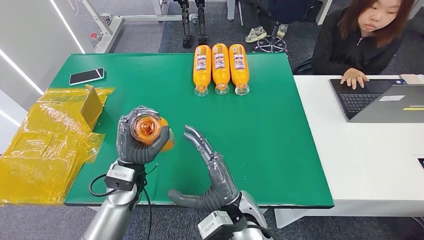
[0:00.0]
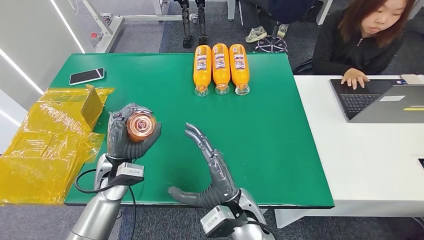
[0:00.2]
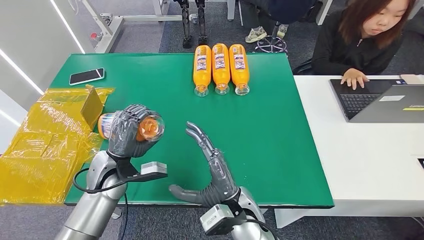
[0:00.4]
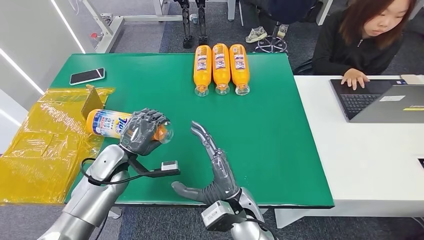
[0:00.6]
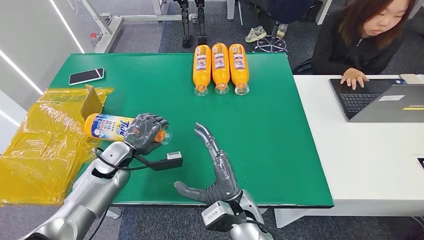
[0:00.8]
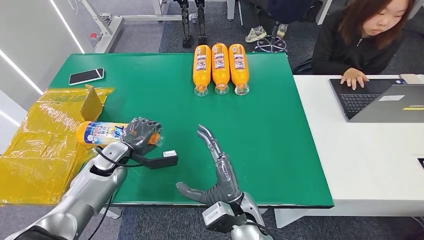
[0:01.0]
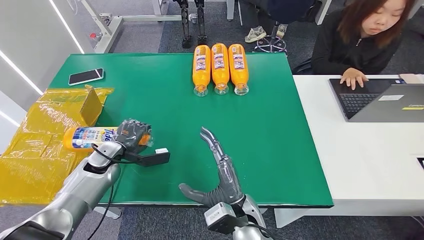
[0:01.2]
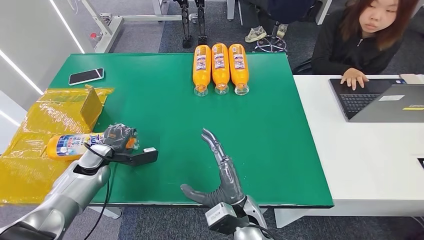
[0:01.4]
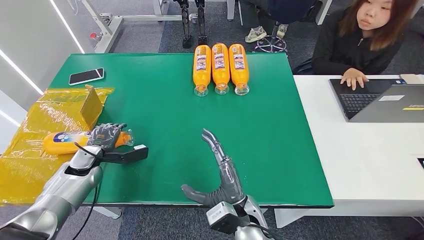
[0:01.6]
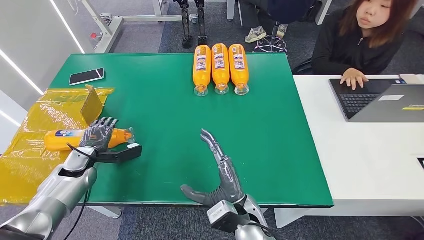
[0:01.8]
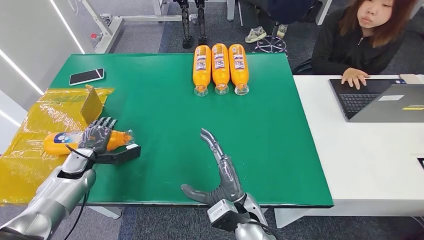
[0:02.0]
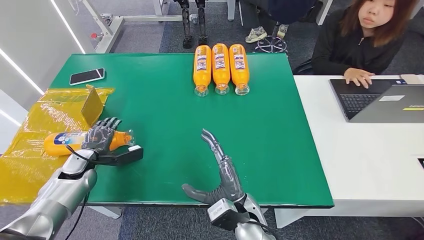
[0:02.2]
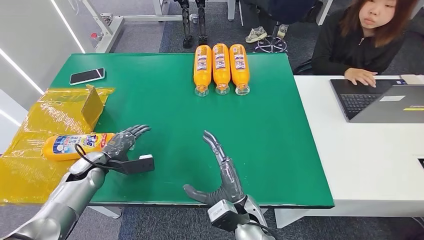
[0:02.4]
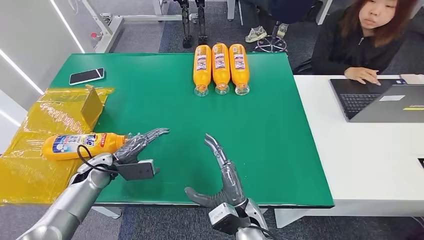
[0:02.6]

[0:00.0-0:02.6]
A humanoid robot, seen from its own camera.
Step, 0:00.0 to 0:02.4: Turn the bottle to the front side.
0:00.0 to 0:01.2: The left hand moves to the left, about 15 cm.
0:01.2 to 0:02.6: The left hand travels to the left and back again, about 10 cm each way.
